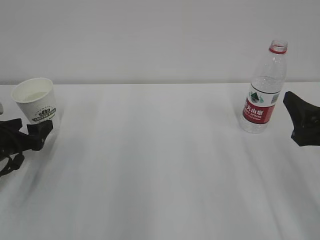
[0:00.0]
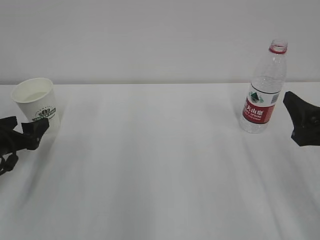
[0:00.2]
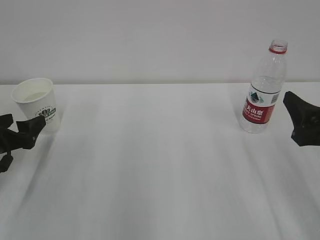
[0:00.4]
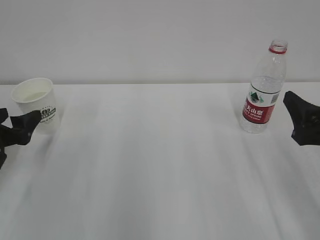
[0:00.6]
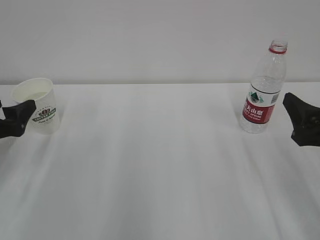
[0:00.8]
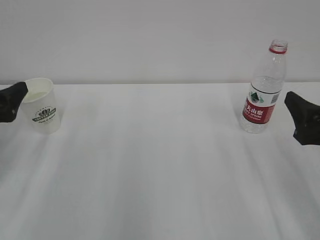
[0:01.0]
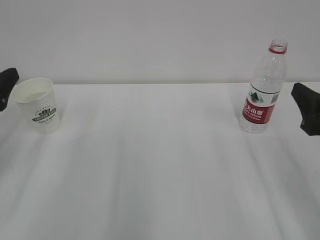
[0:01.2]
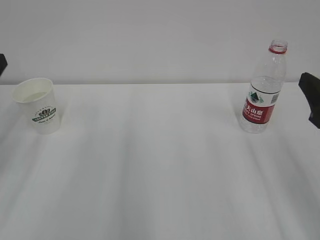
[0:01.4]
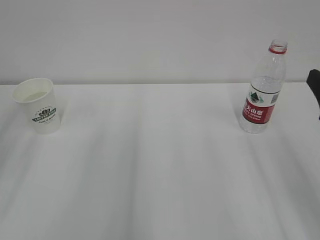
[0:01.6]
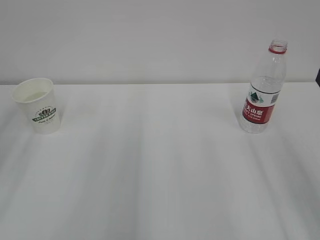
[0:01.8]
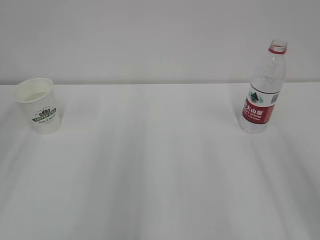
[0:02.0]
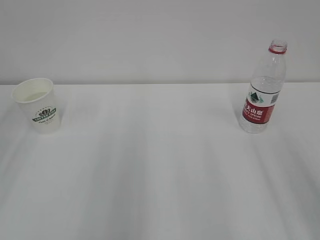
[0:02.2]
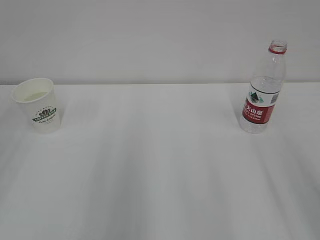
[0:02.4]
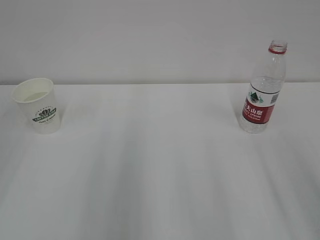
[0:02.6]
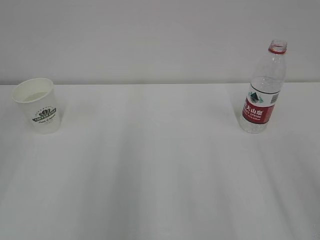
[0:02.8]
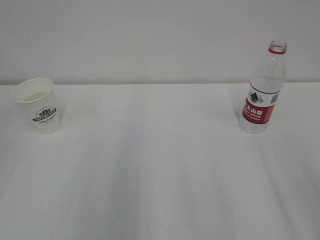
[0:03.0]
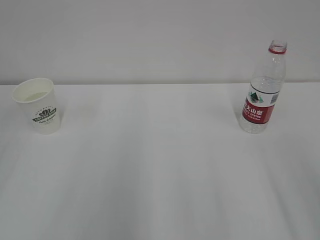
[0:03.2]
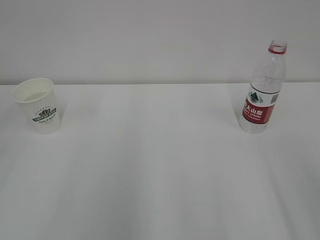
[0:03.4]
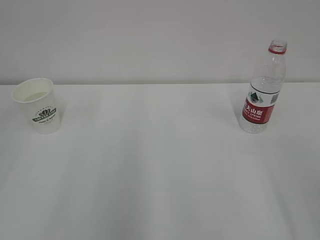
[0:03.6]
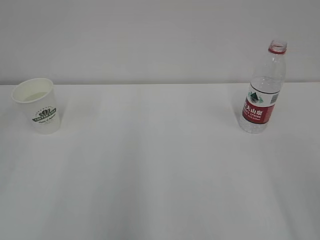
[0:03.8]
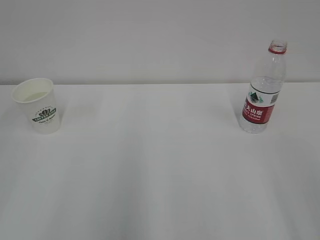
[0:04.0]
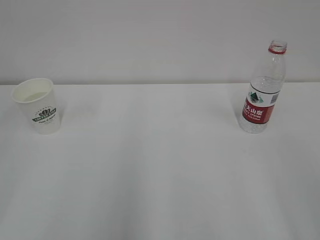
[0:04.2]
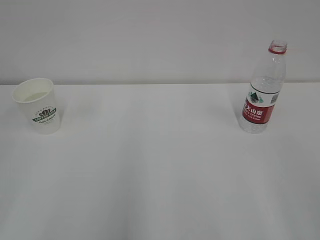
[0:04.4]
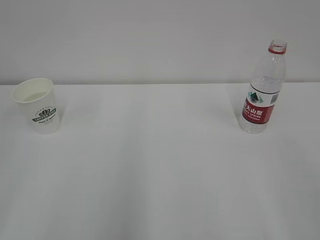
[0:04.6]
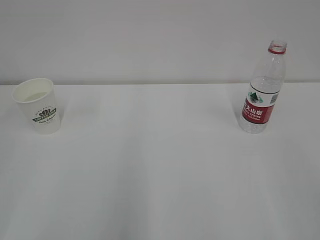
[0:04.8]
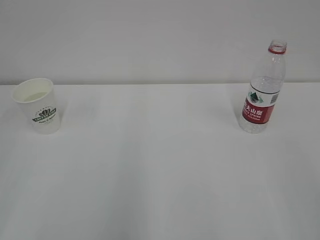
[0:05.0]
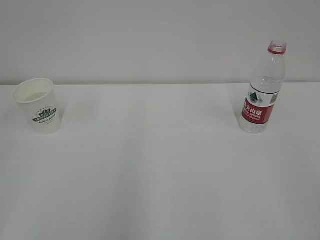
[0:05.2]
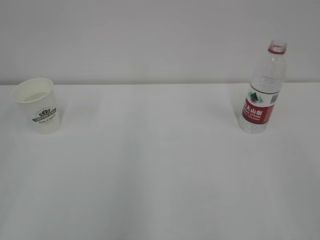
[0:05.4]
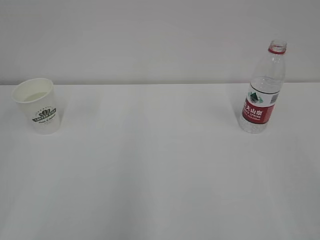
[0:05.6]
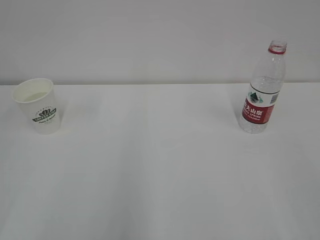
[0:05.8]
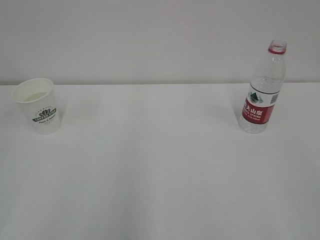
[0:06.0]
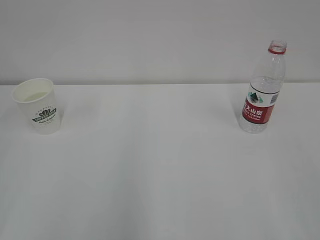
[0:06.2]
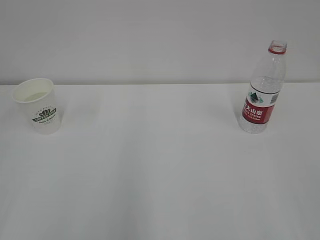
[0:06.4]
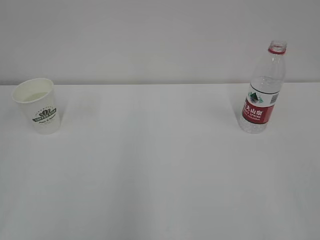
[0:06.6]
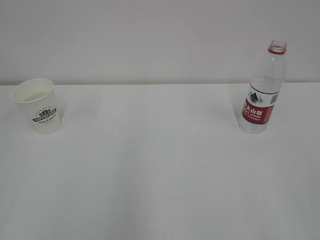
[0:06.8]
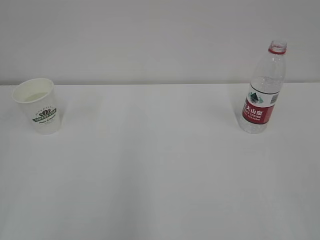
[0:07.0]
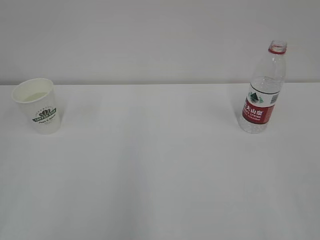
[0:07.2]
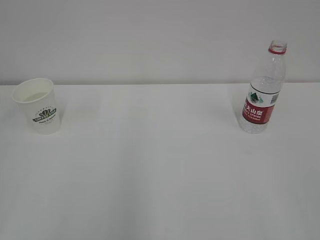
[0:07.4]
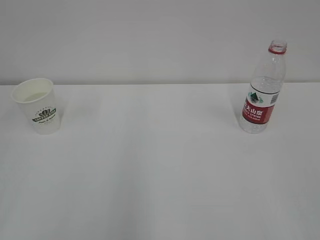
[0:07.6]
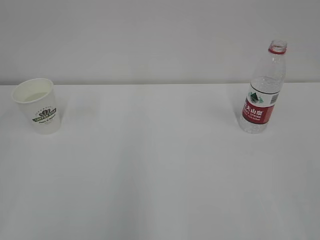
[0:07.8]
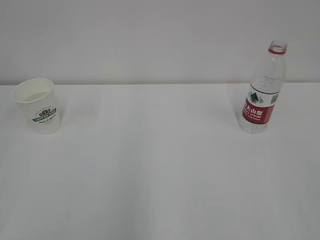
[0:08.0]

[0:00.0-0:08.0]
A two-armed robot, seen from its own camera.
0:00.0 to 0:01.6: The left gripper moves upward and backward, approximately 20 cm, while the right gripper travels upward by some 5 cm.
0:06.4 to 0:08.0: Both grippers stay about where they are.

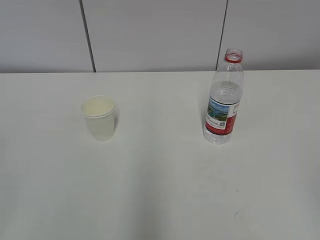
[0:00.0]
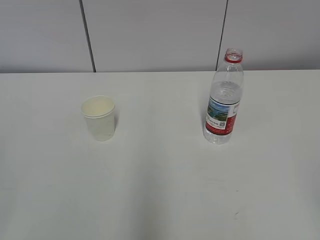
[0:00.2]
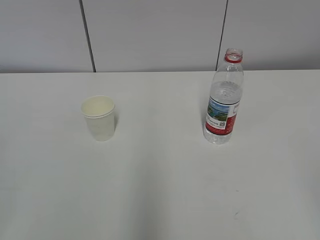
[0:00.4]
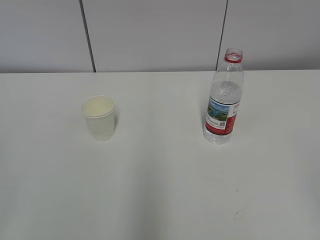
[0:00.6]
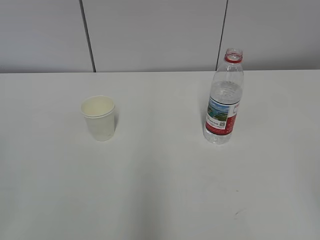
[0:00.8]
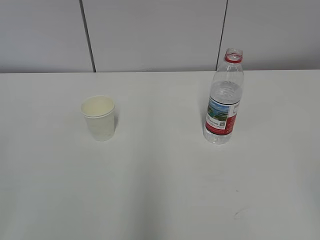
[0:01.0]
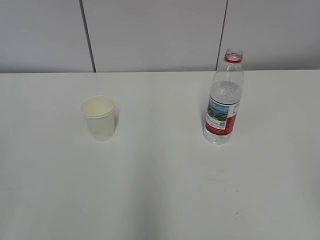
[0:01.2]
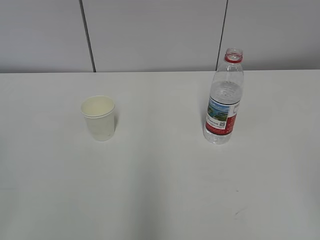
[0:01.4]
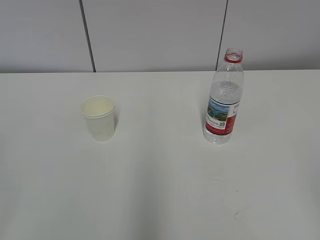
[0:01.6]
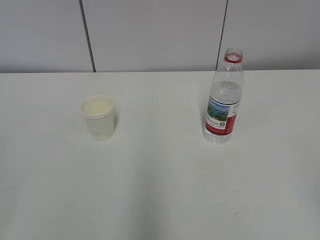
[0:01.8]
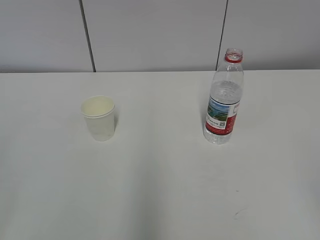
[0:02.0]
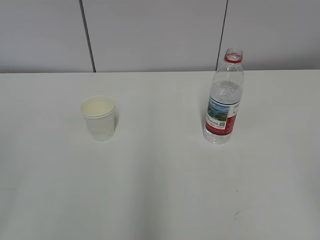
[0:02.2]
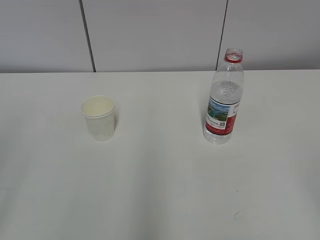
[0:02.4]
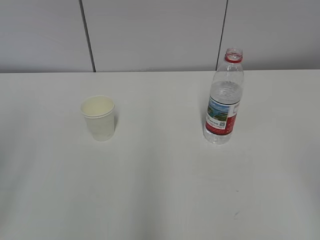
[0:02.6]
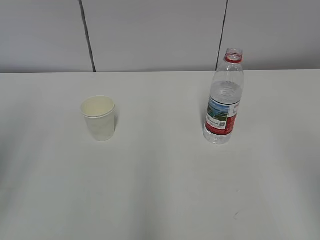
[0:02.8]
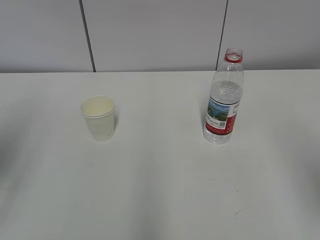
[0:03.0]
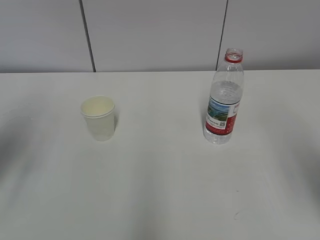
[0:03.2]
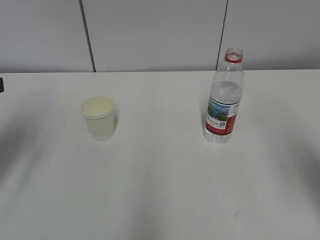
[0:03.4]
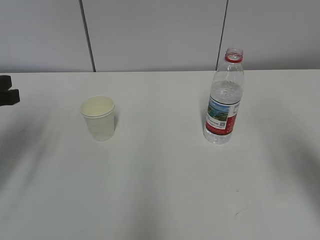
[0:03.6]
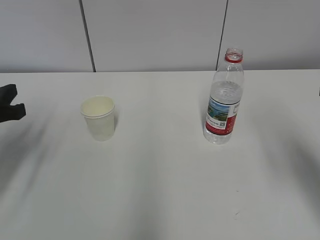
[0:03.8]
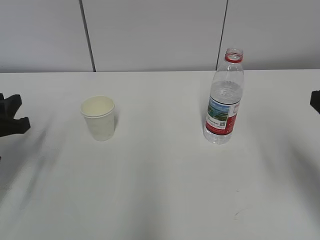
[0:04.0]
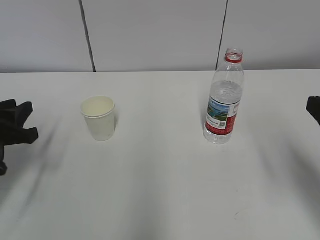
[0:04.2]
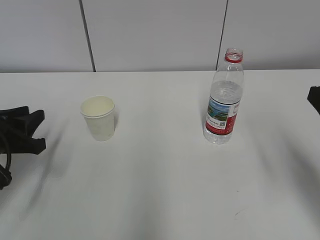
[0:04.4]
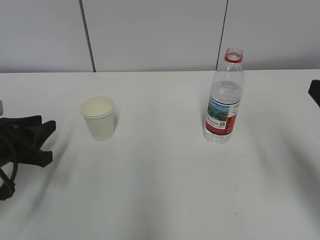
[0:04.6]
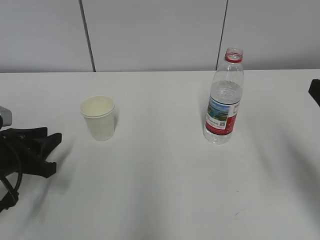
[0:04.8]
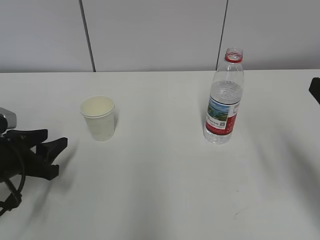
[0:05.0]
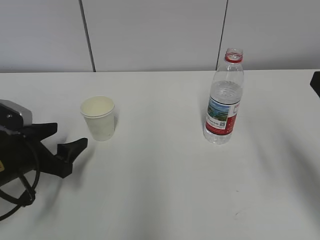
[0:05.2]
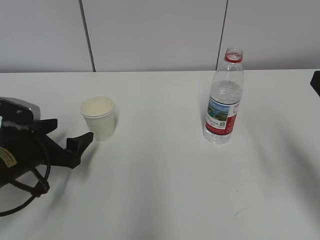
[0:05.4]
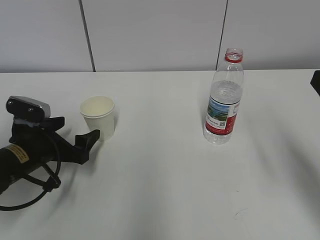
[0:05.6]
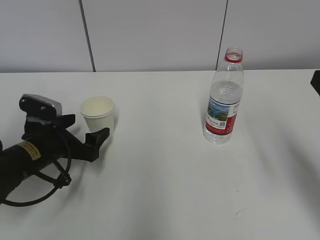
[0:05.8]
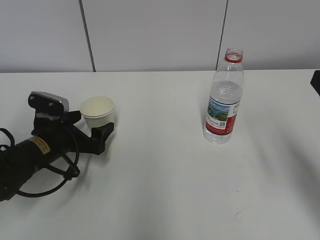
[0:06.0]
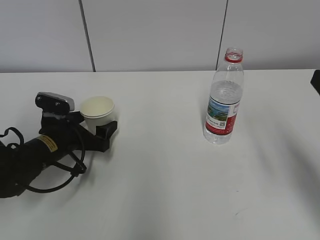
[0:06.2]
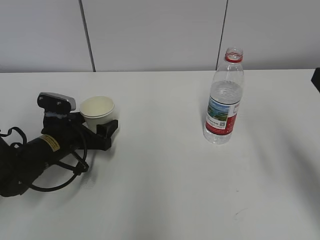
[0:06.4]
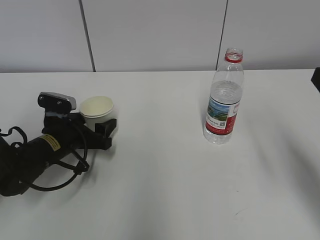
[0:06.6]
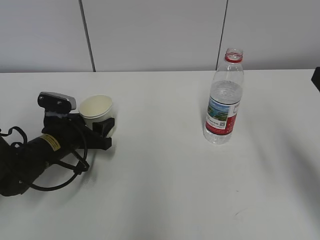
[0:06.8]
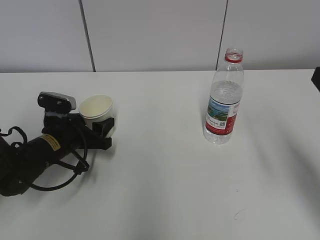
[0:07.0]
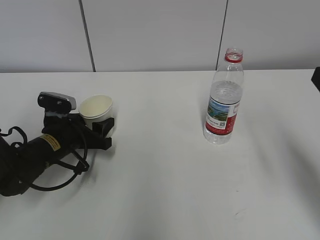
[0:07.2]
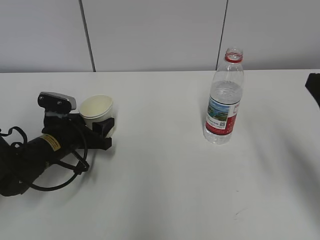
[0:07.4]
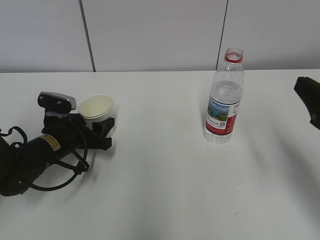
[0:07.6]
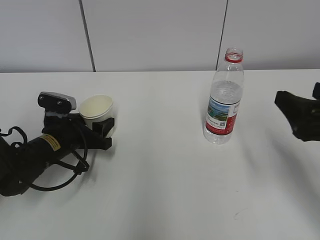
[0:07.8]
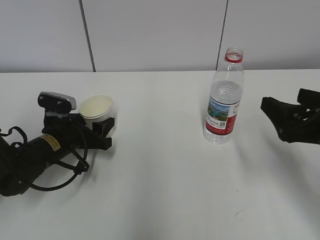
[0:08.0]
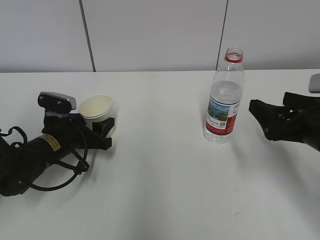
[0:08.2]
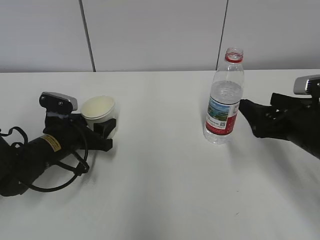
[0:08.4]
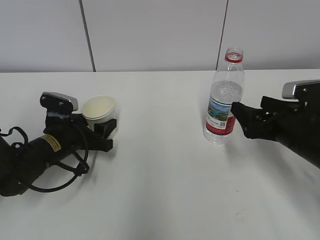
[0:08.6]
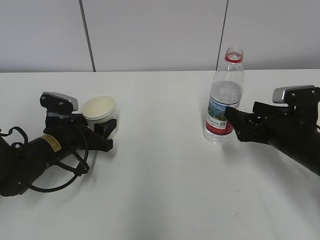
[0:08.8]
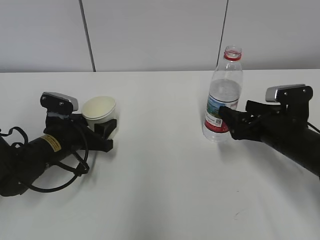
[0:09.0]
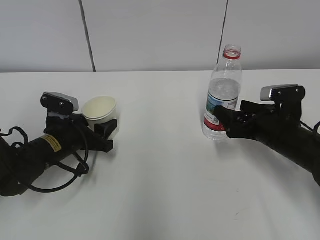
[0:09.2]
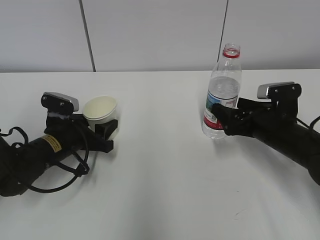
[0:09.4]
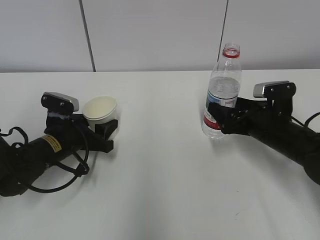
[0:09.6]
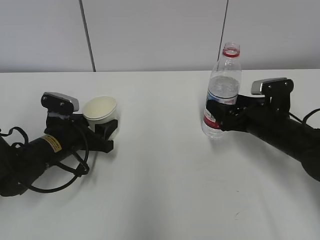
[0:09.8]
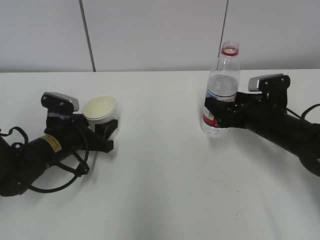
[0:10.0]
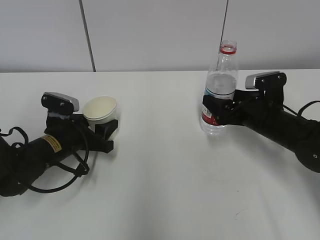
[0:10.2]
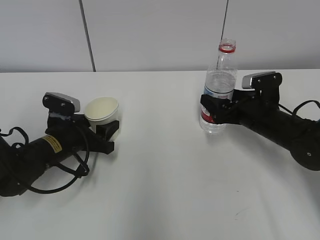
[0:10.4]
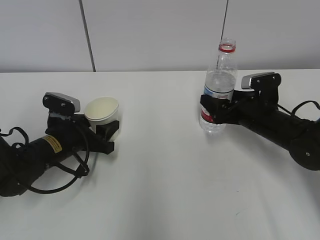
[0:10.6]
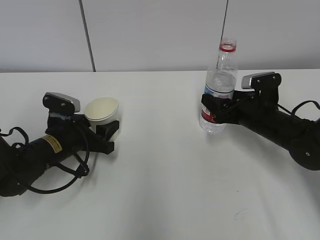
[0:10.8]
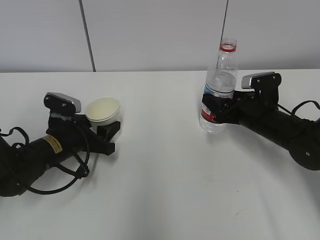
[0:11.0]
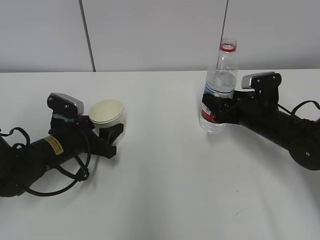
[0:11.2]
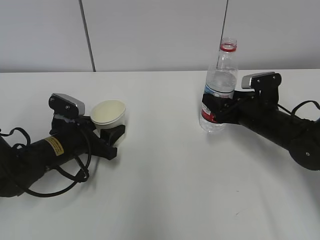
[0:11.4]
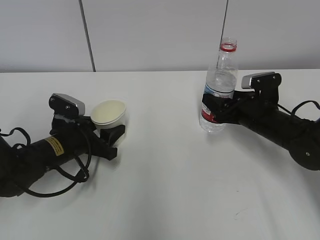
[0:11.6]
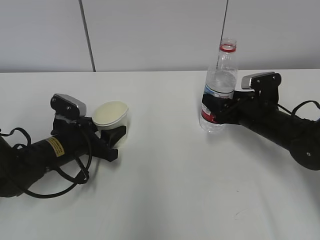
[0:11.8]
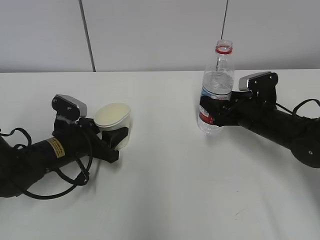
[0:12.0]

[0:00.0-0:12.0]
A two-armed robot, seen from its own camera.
Step, 0:00.0 to 0:09.0: Grab the paper cup with the left hand.
Step, 0:09.2 to 0:10.8: Grab the water bottle with the right hand.
0:01.6 to 0:03.0: The left gripper shifts approximately 20 cm forward.
0:03.0 to 0:04.4: The right gripper moves forward and downward, some 10 cm. Meanwhile the left gripper travels downward and forward by roughly 20 cm.
0:04.4 to 0:06.0: The left gripper travels to the right, forward and downward by some 10 cm, and opens its fingers.
0:06.0 to 0:07.6: The left gripper closes its fingers.
0:07.6 to 0:09.0: The right gripper heads downward and forward, covering some 15 cm, and opens.
0:09.0 to 0:10.4: The right gripper shifts some 5 cm forward.
0:10.4 to 0:12.0: The right gripper closes.

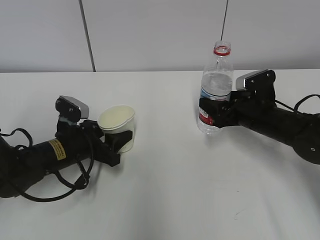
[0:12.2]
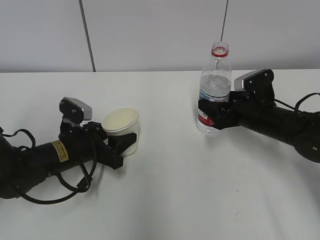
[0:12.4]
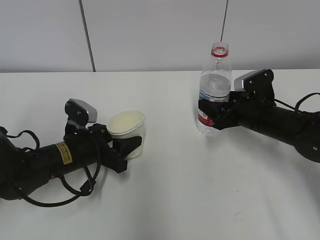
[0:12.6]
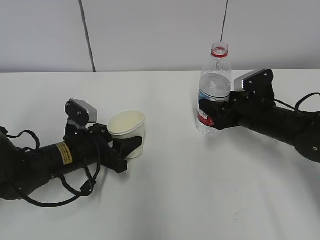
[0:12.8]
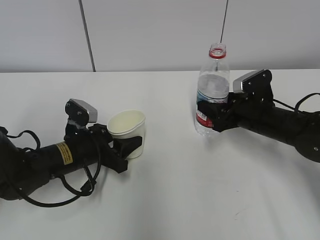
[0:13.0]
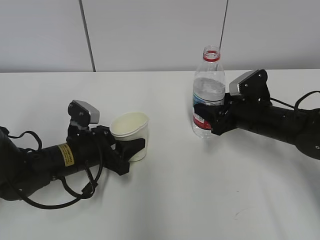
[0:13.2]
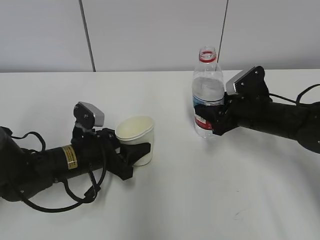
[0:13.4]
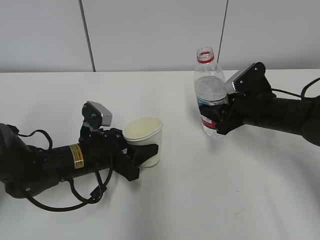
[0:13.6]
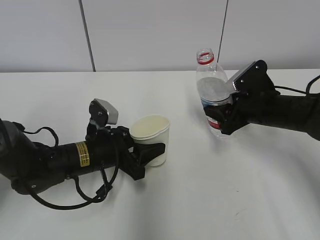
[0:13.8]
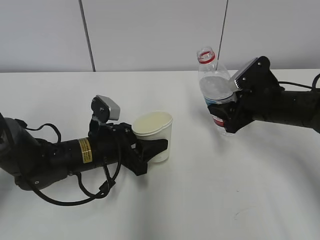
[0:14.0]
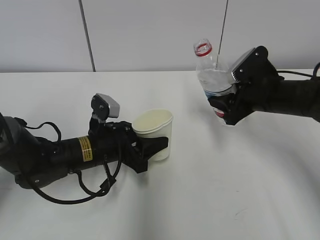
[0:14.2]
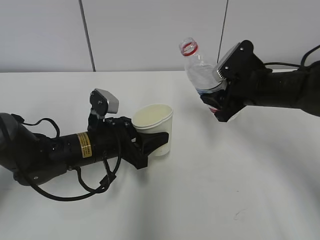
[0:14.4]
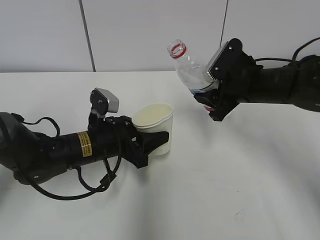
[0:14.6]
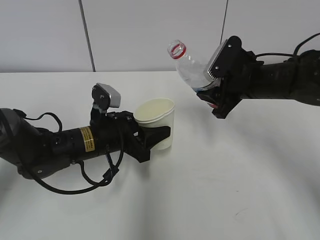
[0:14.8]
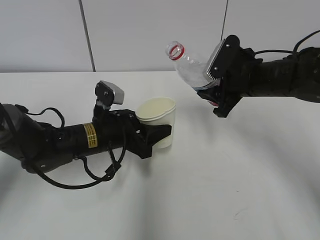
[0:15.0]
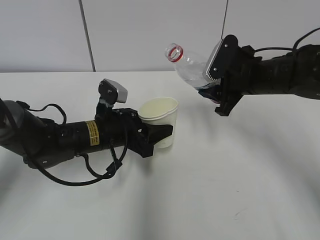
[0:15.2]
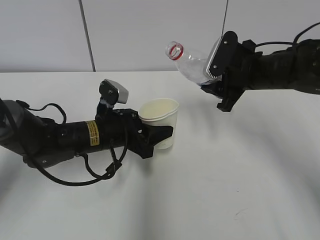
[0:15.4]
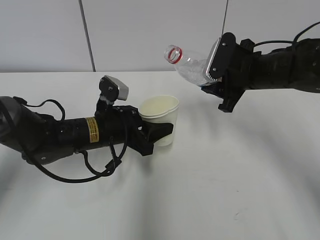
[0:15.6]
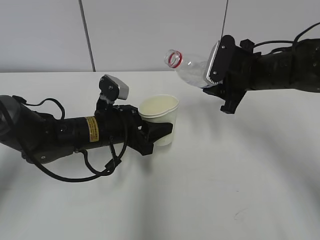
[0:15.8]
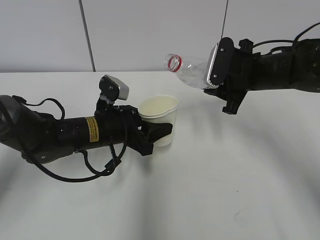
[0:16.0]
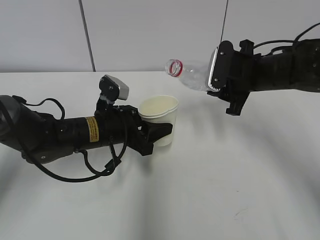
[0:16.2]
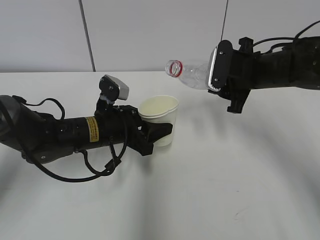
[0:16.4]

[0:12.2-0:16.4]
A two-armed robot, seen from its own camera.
0:12.2 to 0:13.6: The grippers make only small movements.
0:13.6 to 0:15.0: The right gripper heads upward, covering some 5 cm.
